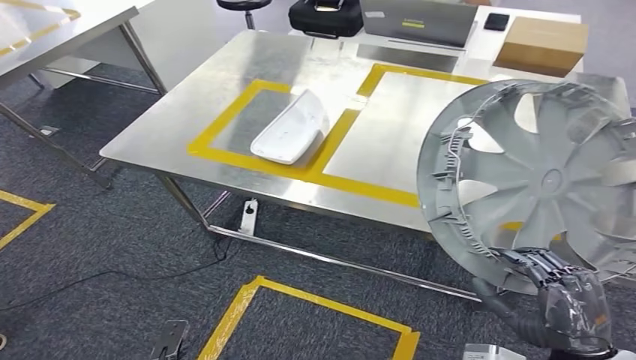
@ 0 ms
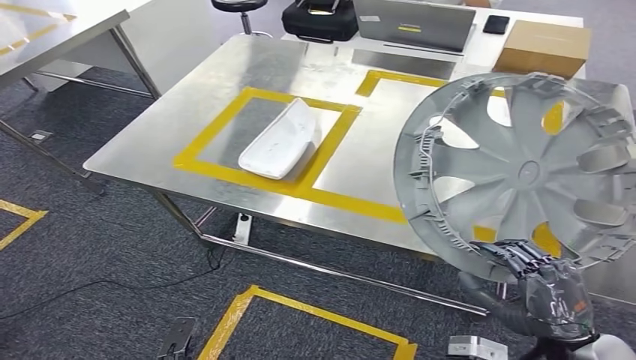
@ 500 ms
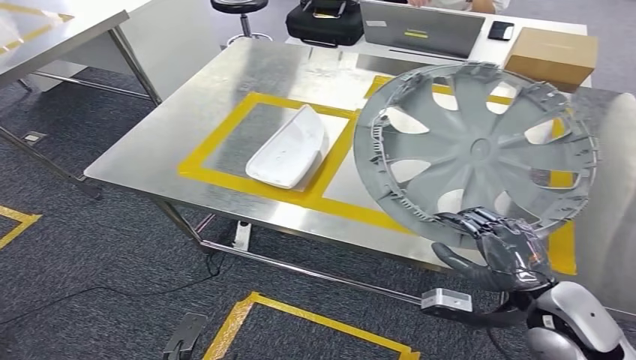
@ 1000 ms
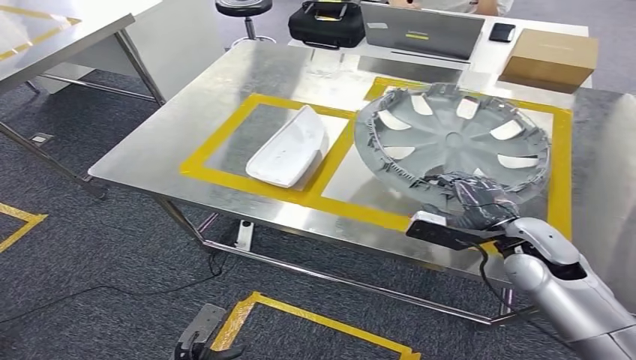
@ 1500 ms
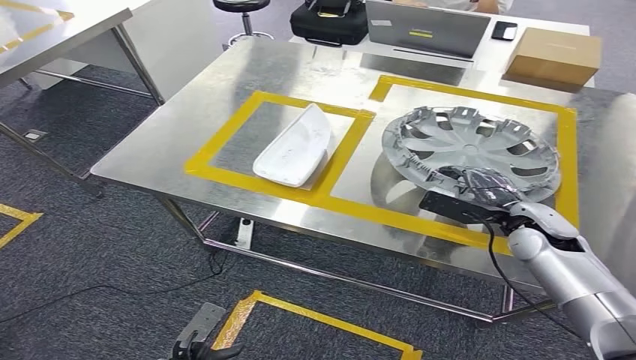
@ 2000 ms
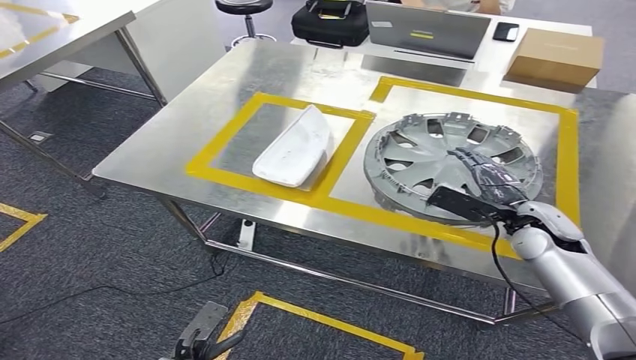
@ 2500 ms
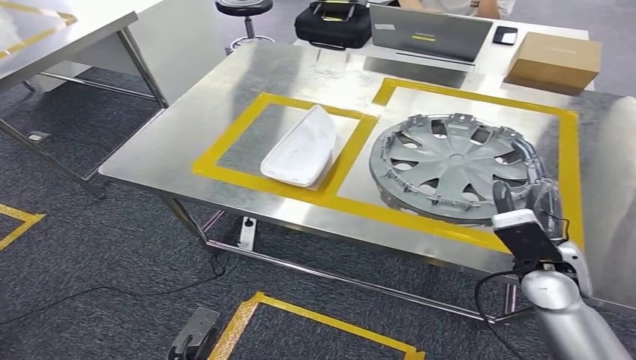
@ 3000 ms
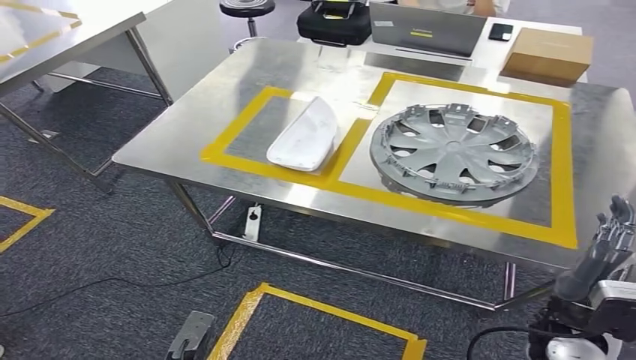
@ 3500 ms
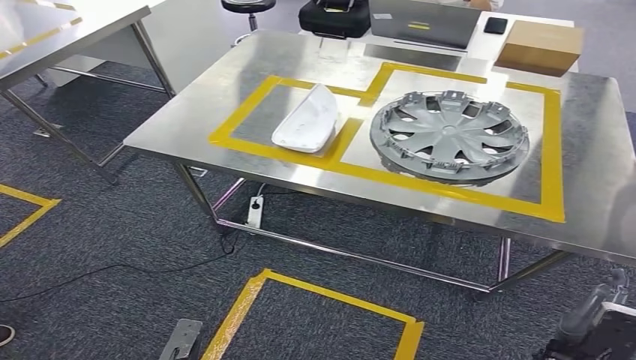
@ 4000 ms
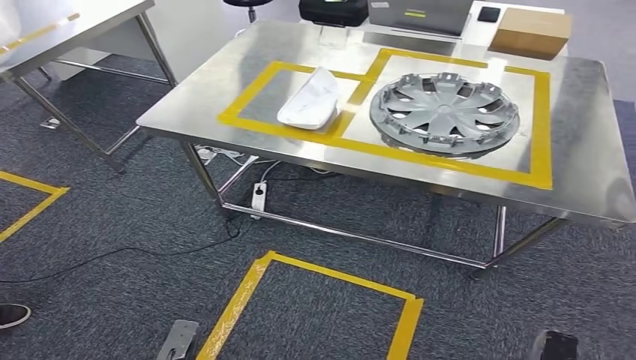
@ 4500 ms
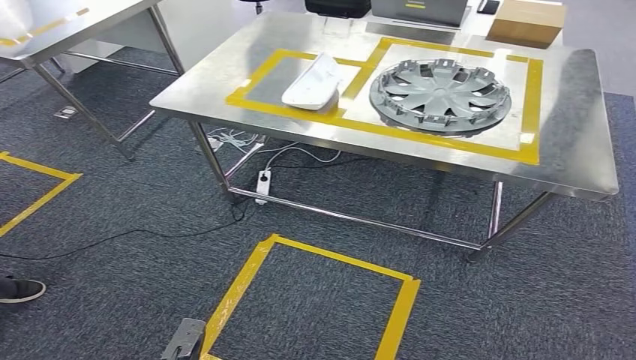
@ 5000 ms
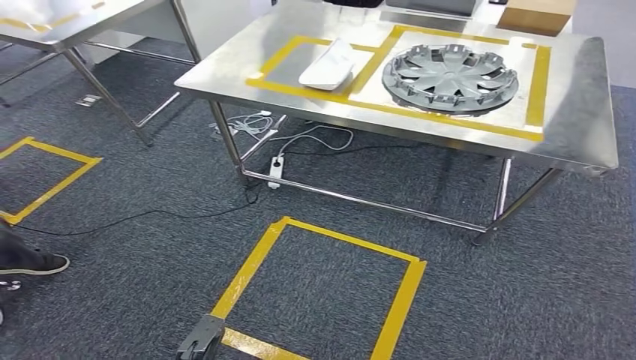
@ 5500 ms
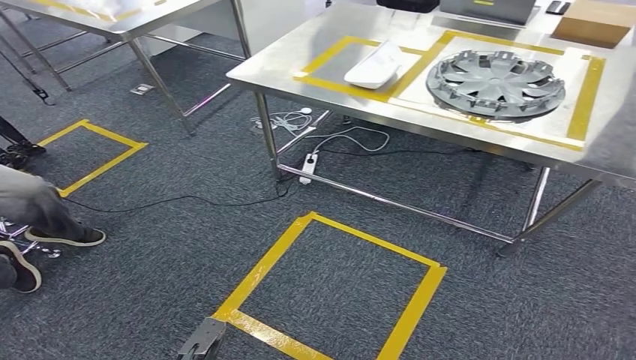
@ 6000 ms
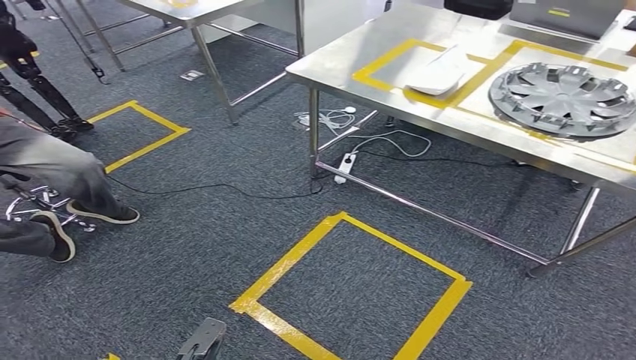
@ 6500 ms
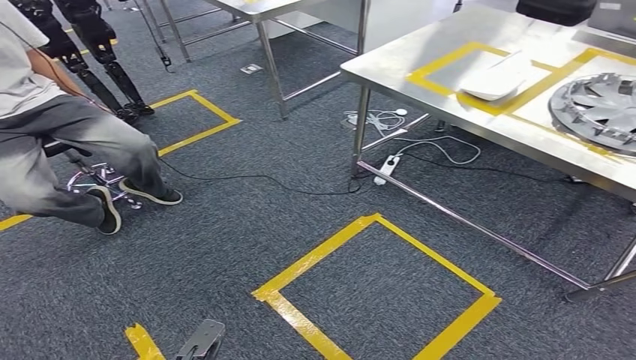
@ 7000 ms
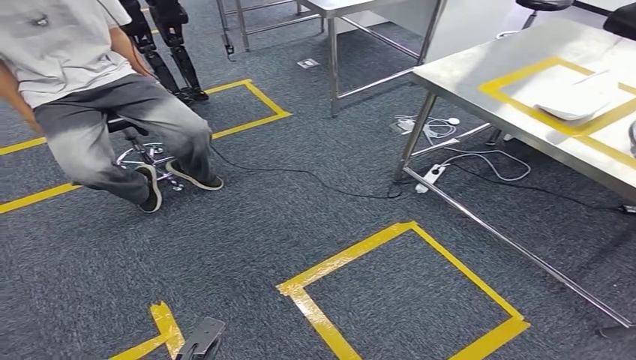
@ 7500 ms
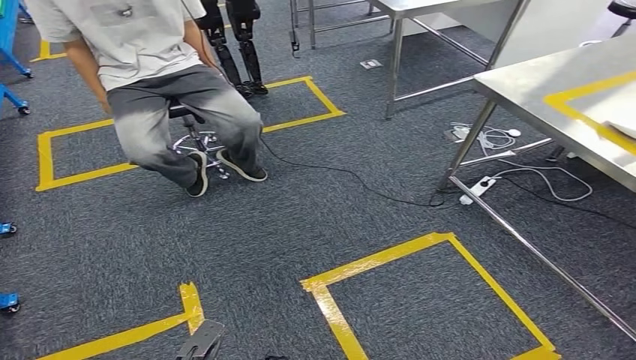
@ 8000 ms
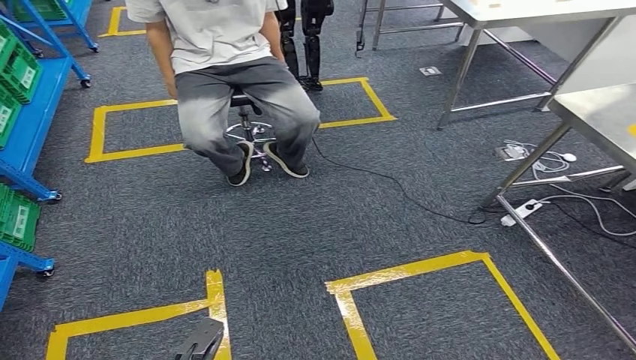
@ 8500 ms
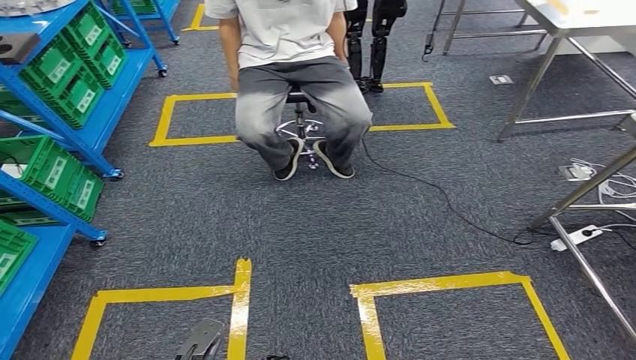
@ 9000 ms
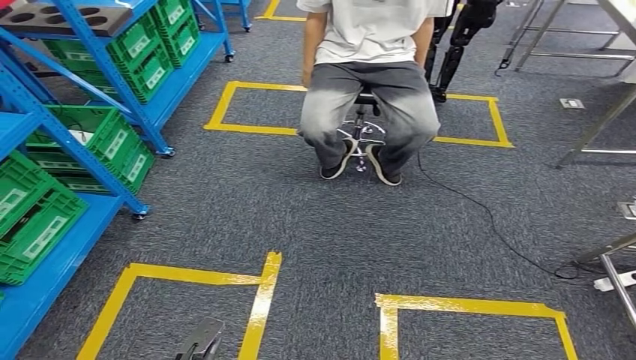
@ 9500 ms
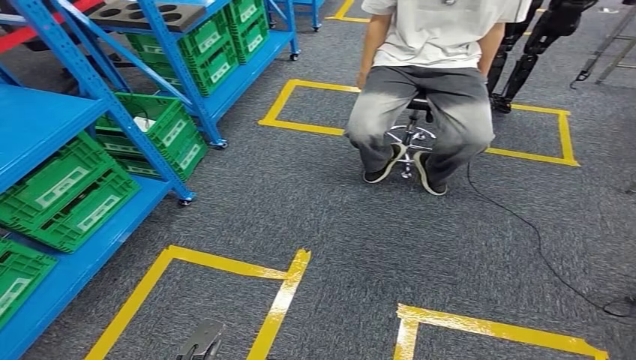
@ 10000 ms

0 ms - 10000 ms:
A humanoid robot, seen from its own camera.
Step, 0 ms - 3500 ms: Insert the small component into the corresponding slot on the workbench.

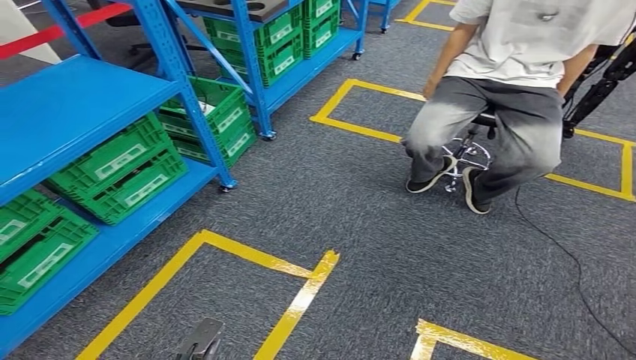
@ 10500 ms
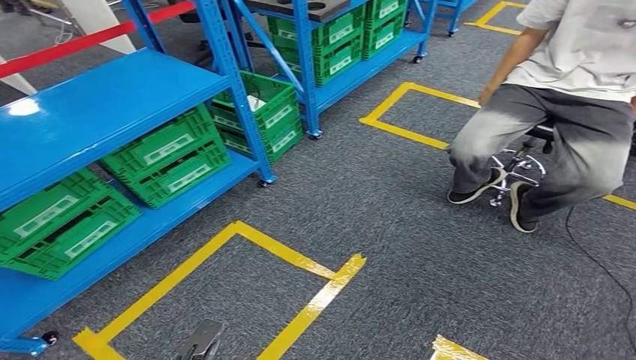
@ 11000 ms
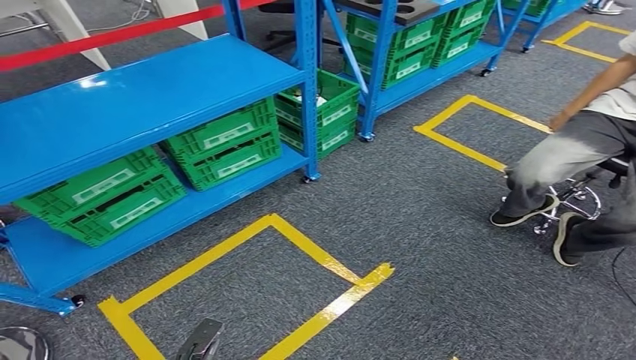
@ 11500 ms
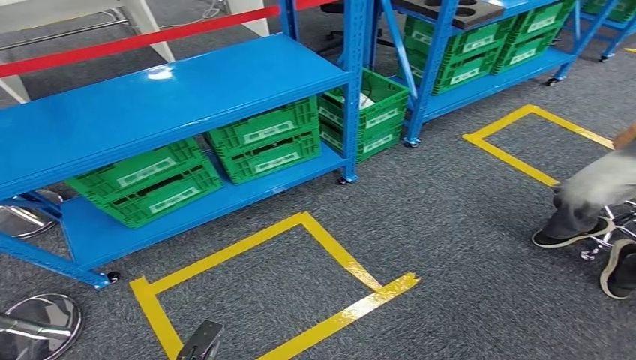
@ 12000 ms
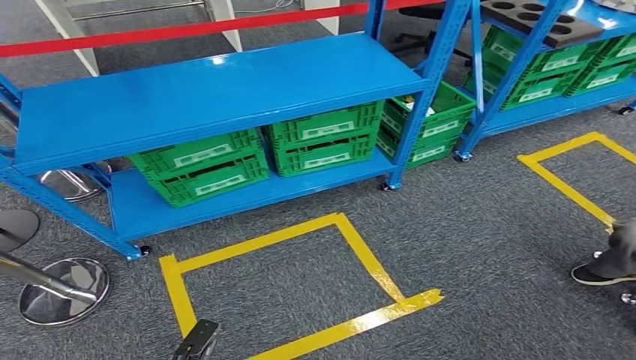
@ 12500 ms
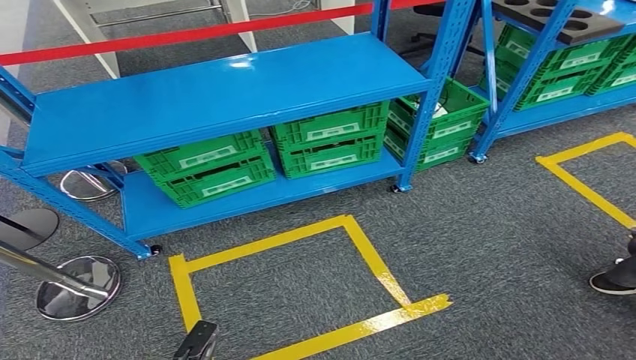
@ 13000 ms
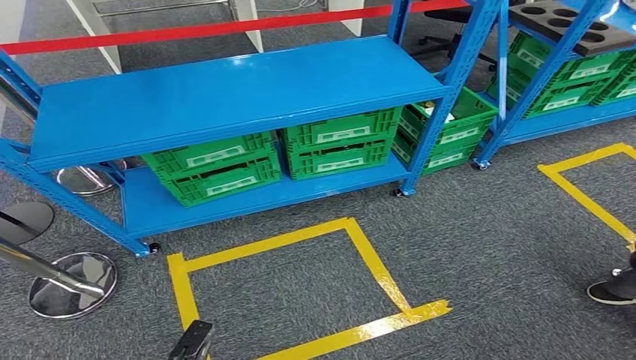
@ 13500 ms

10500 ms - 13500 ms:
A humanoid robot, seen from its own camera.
Step, 10500 ms - 13500 ms: Return to the initial position at the workbench.
